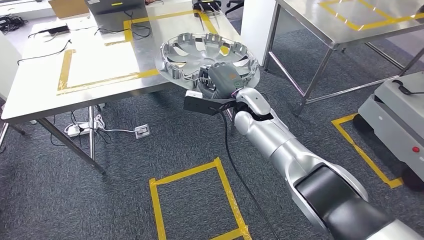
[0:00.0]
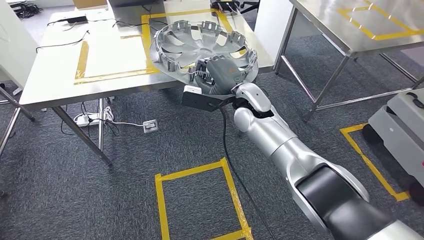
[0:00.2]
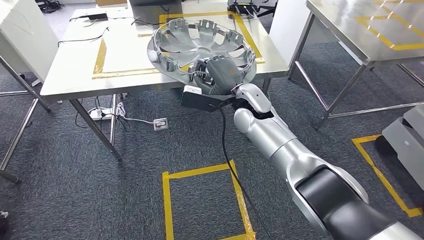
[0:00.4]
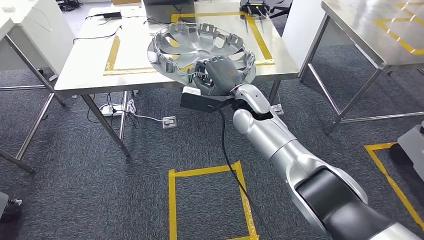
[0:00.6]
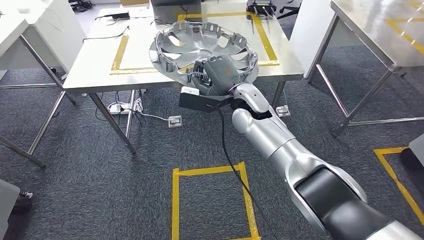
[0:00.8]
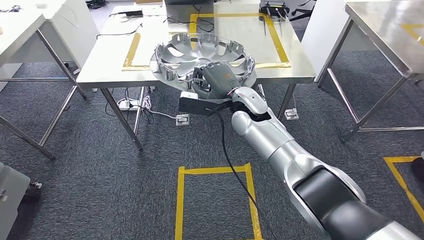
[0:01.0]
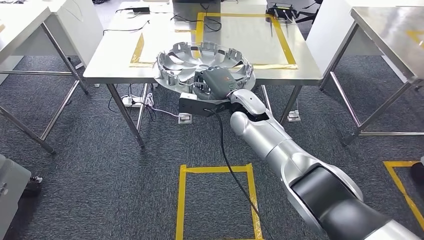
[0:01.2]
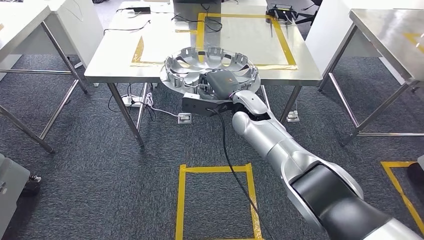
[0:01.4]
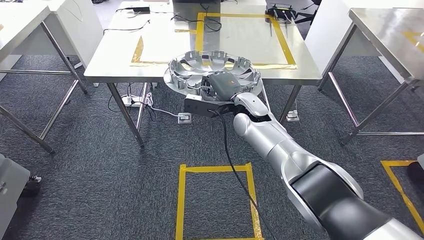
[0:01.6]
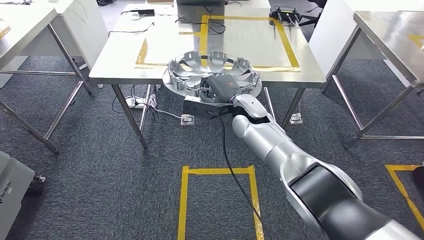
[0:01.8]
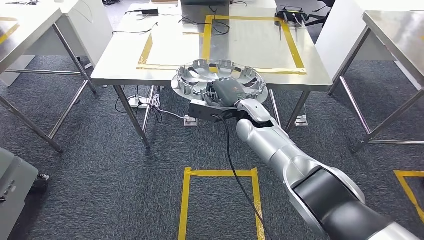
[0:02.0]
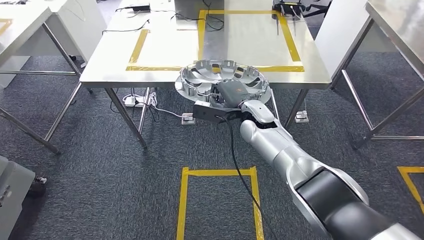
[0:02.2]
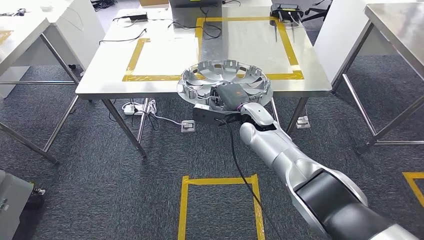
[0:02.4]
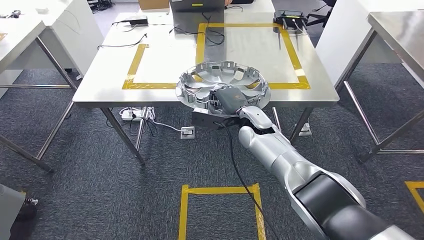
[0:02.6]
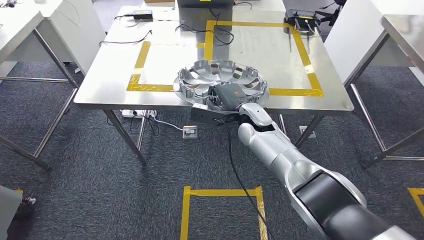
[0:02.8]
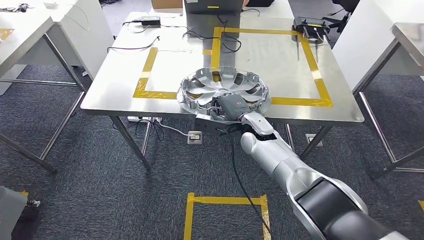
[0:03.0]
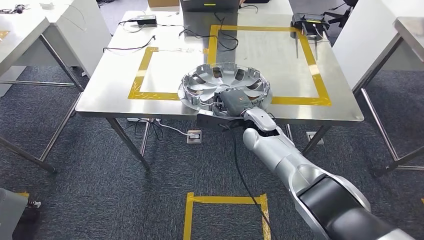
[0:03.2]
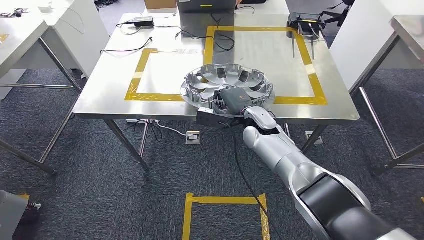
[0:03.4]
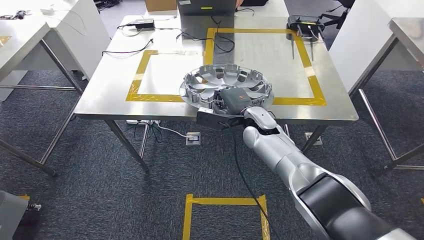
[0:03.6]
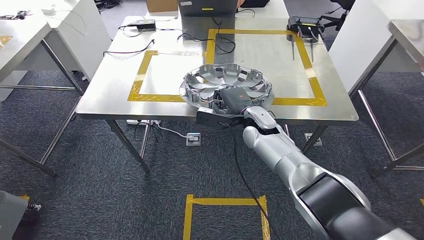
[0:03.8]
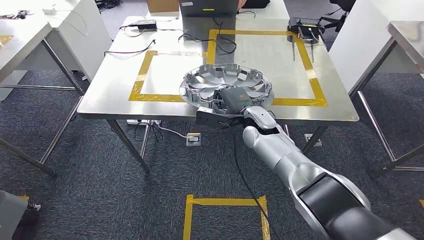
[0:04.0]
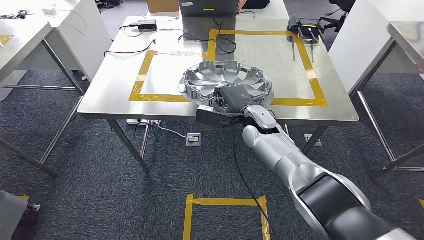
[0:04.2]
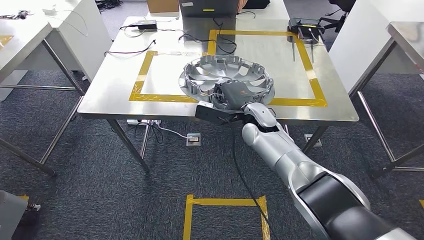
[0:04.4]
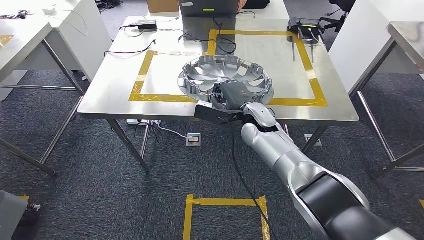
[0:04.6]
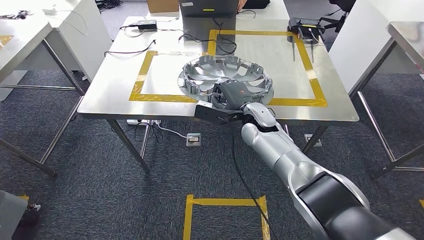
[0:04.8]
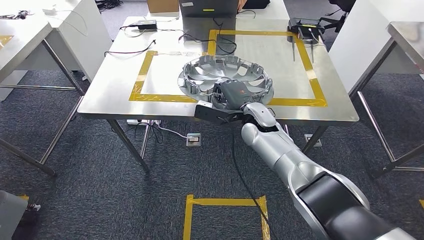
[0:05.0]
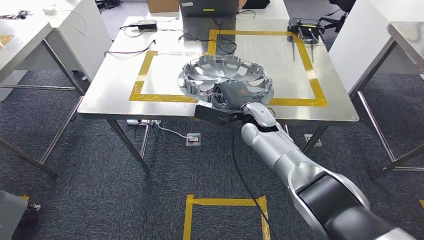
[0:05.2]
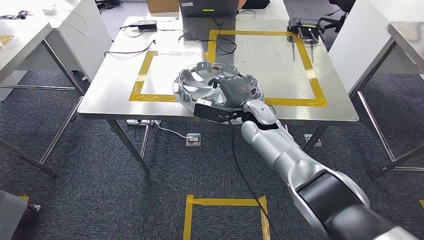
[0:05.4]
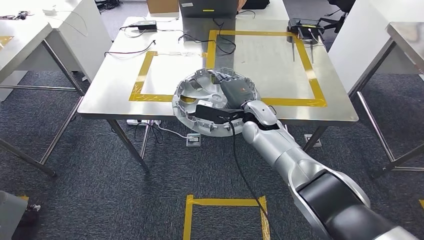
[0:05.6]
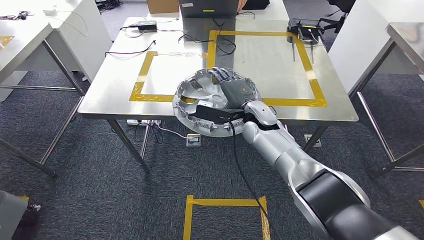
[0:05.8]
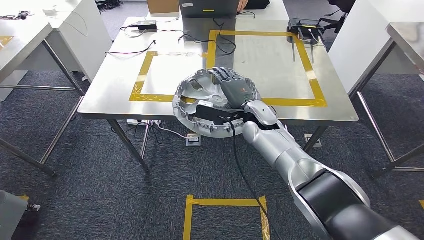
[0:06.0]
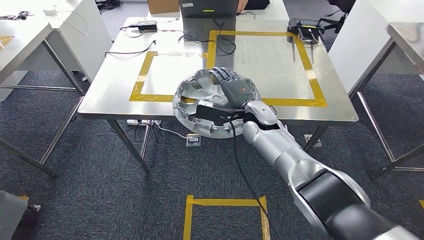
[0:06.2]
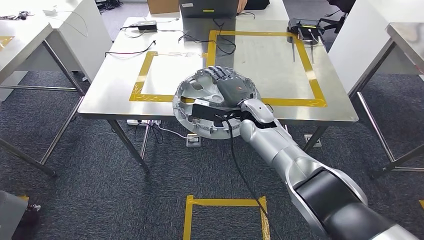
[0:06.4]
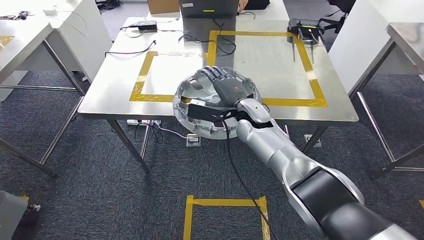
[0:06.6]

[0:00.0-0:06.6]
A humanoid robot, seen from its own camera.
Step, 0:01.4 to 0:06.2: Insert the small component into the corresponding slot on the workbench.
0:05.0 to 0:06.6: There are only small adjustments of the hands.
